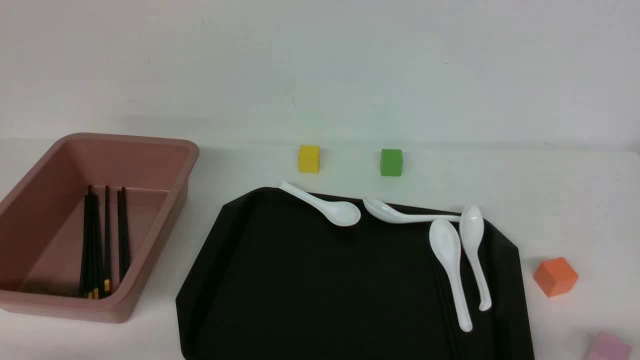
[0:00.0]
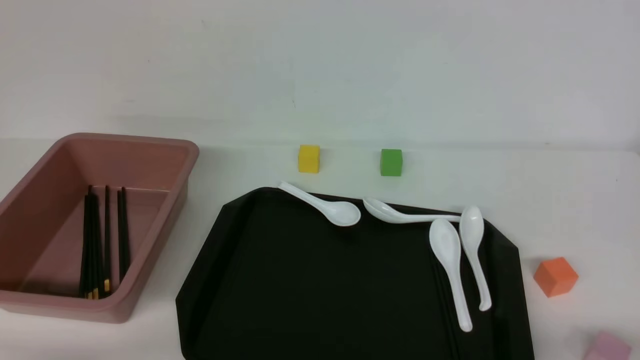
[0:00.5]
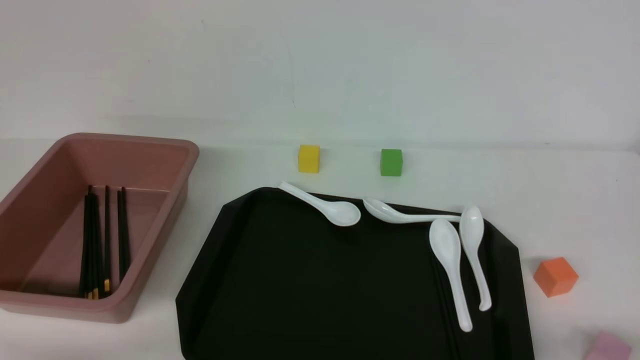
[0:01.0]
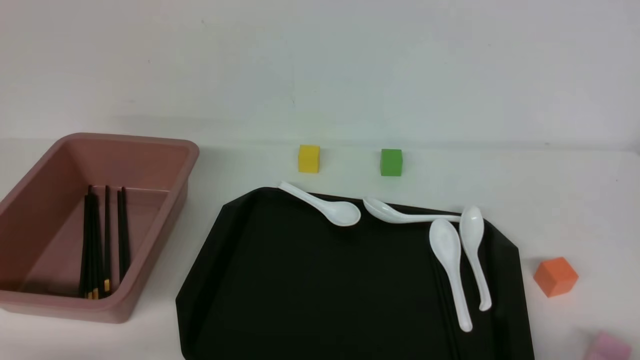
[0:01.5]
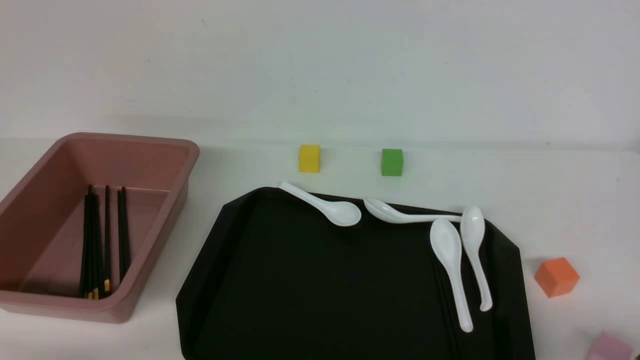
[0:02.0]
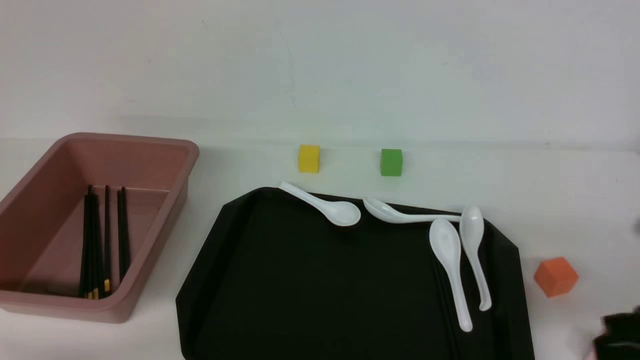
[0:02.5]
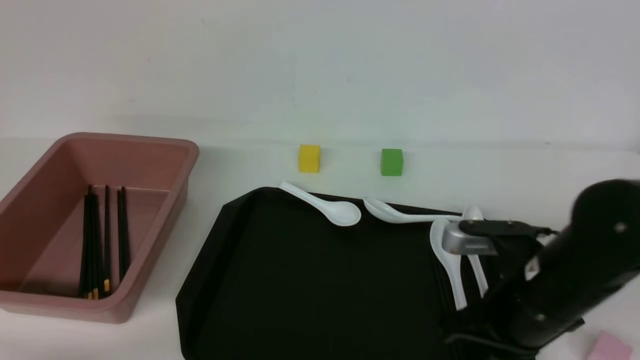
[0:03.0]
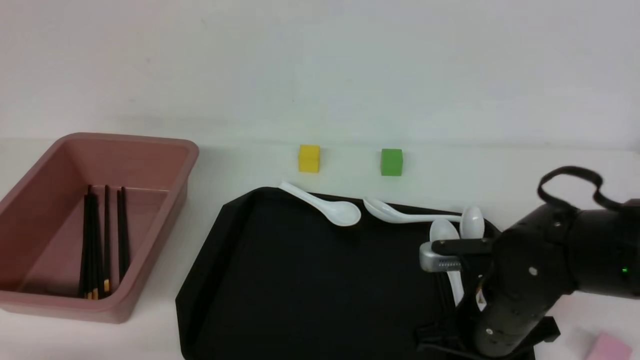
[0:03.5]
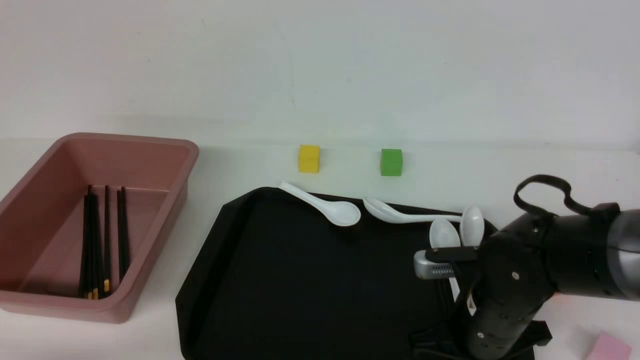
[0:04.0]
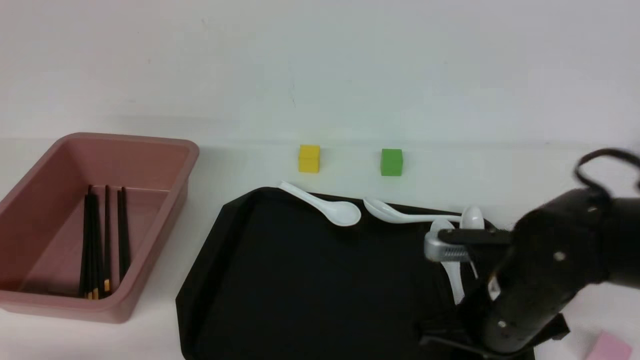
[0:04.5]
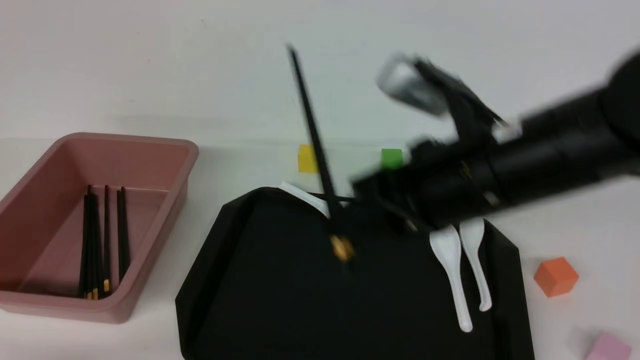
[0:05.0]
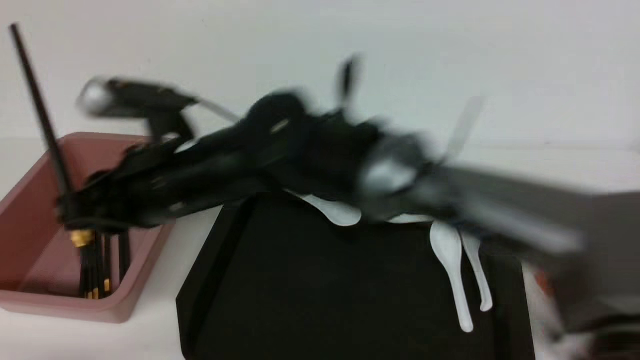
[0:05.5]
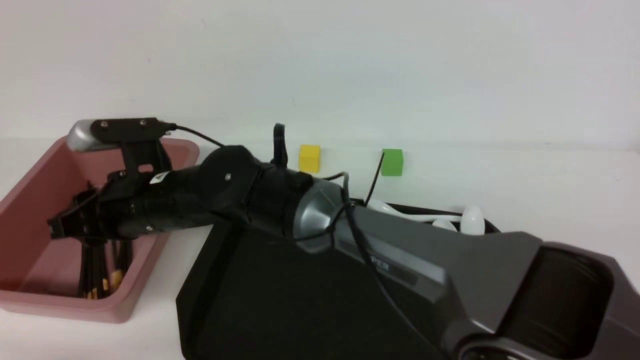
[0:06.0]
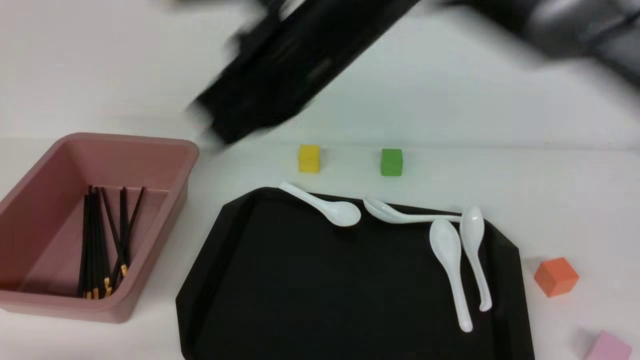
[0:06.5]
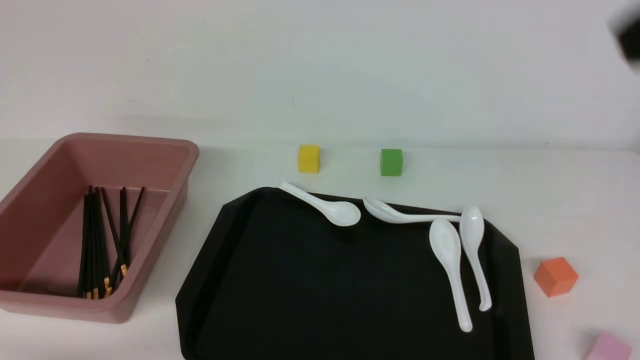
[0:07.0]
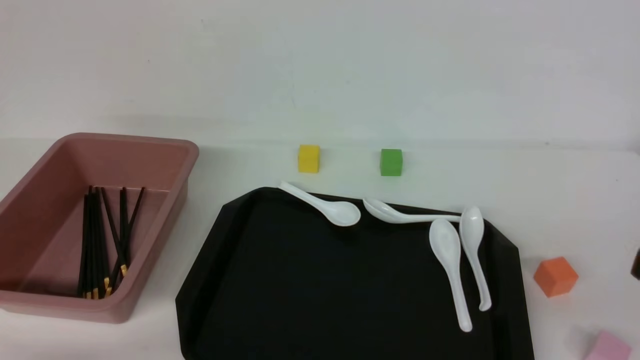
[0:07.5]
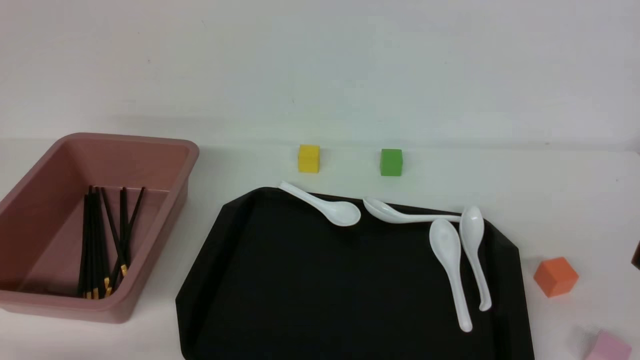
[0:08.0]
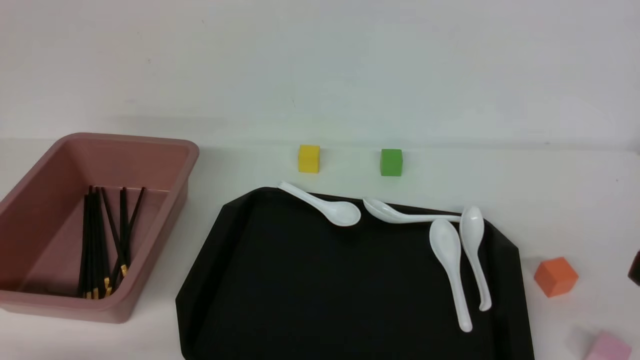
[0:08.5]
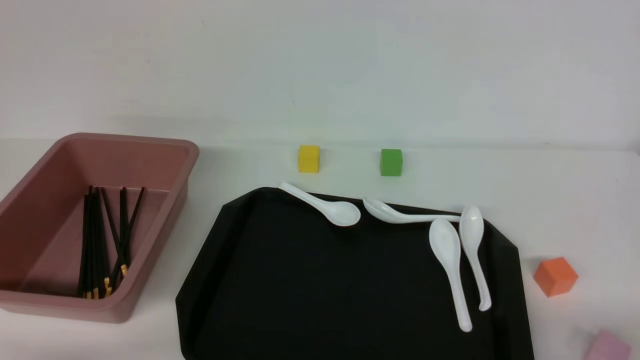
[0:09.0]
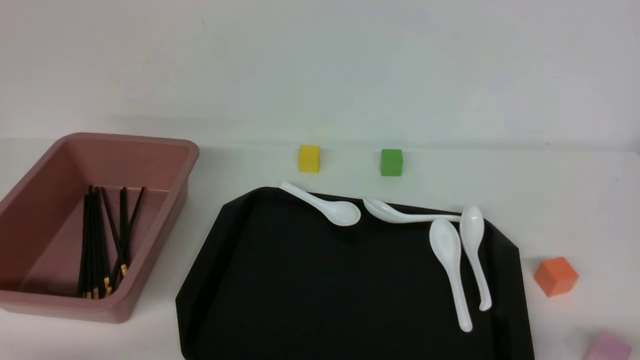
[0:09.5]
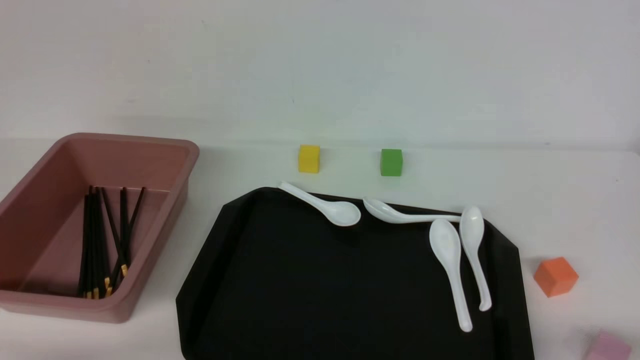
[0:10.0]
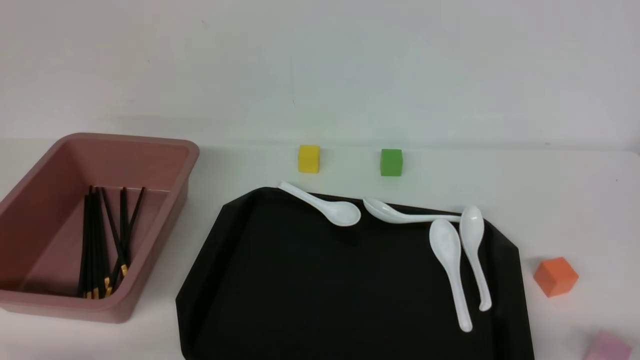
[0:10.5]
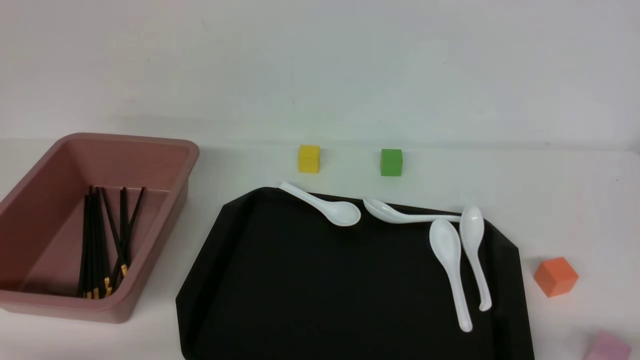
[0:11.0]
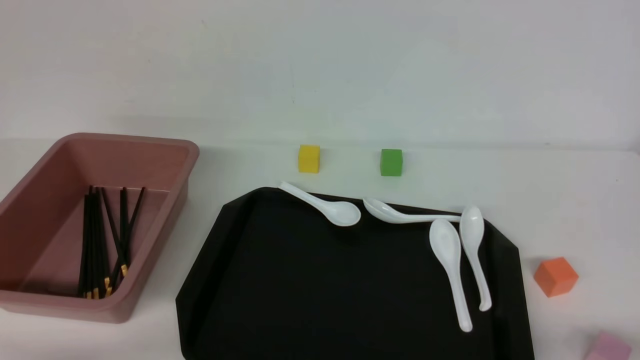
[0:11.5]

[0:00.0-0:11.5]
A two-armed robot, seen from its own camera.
Step, 0:00.0 to 0:04.5: use the right arm to grab a pair of chopsticks.
Step, 0:05.0 to 0:06.0: use the right arm to put the chopsticks into the lunch box.
0:02.0 to 0:04.0: The right gripper shifts roughly 25 cm forward, to the left and downward, and closes, then opens again.
0:04.0 to 0:06.0: The right gripper shifts some 30 cm to the left.
0:06.0 to 0:07.5: The right gripper moves to the right and backward, about 50 cm, and closes up.
0:09.5 to 0:11.5: The two grippers keep their place.
